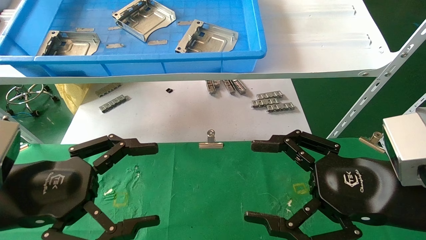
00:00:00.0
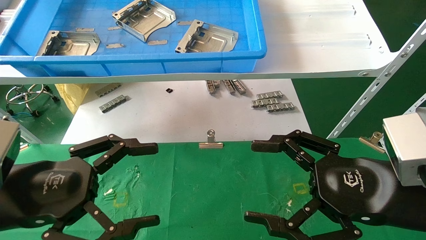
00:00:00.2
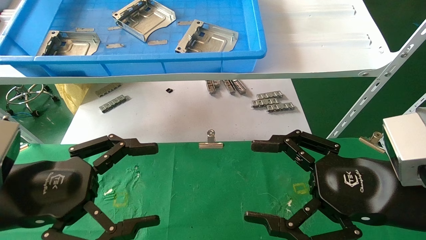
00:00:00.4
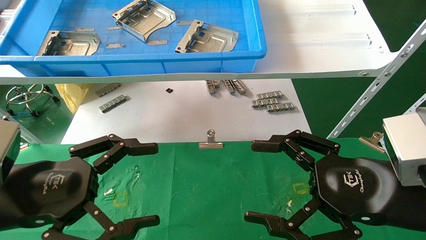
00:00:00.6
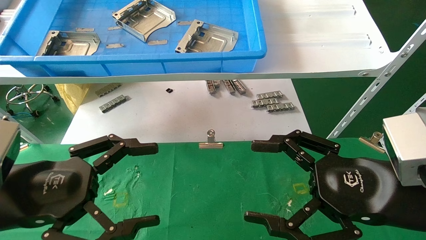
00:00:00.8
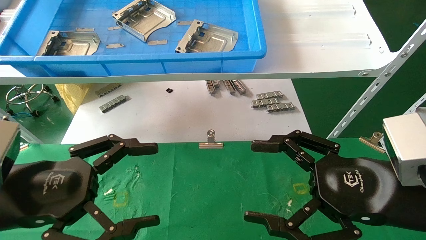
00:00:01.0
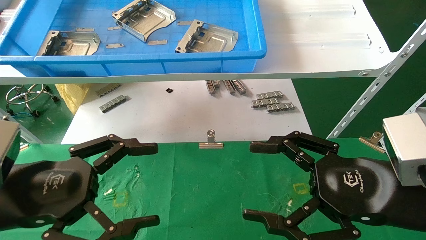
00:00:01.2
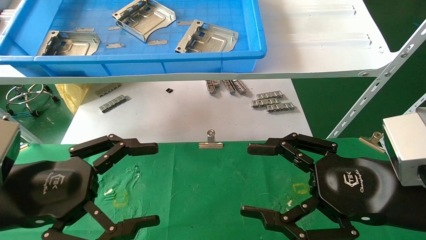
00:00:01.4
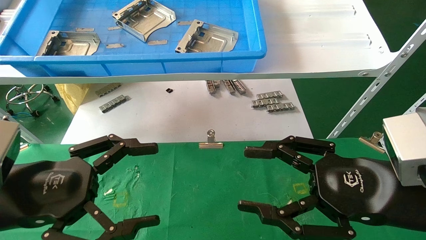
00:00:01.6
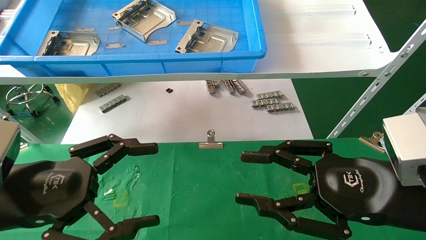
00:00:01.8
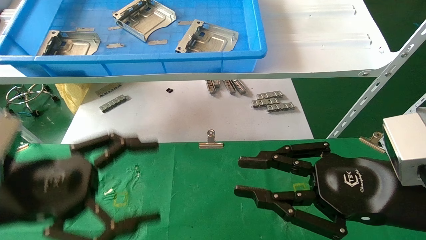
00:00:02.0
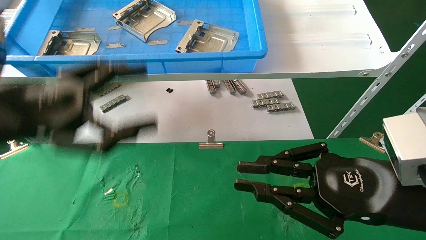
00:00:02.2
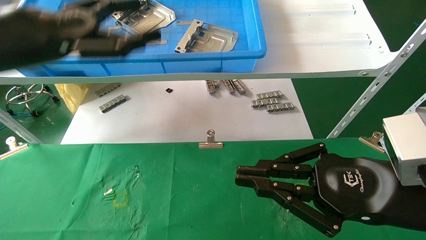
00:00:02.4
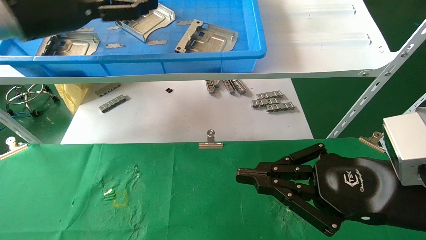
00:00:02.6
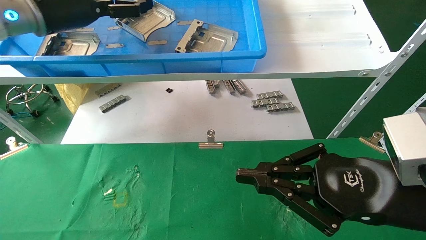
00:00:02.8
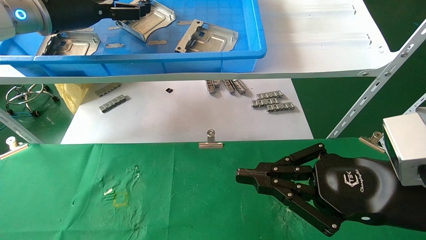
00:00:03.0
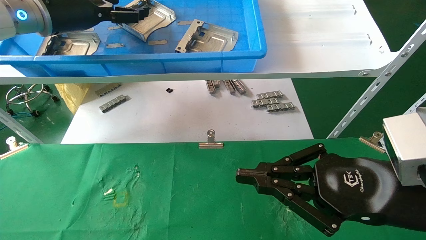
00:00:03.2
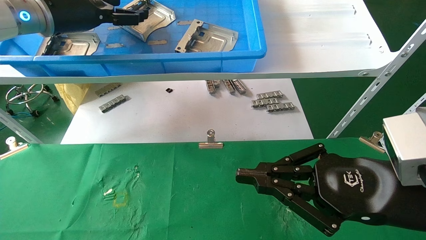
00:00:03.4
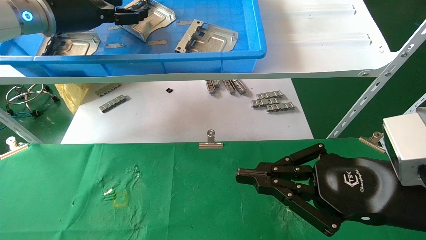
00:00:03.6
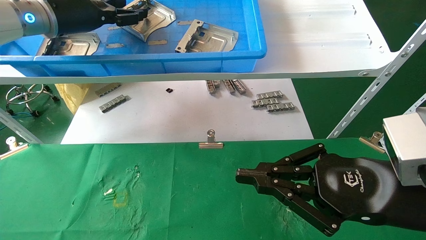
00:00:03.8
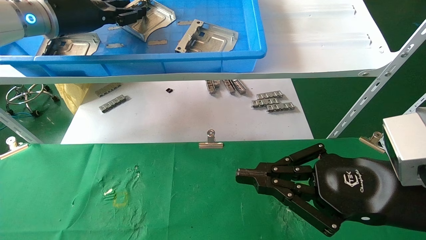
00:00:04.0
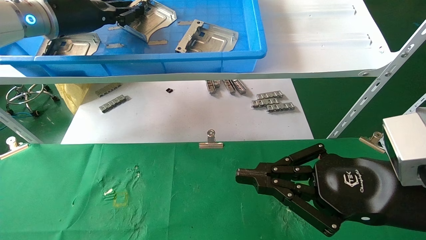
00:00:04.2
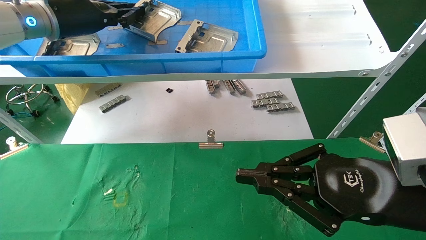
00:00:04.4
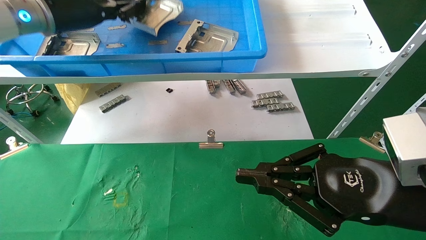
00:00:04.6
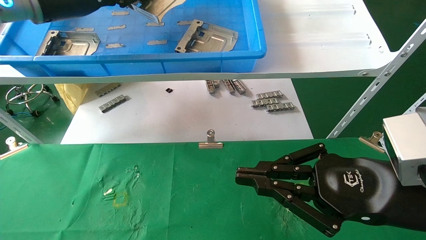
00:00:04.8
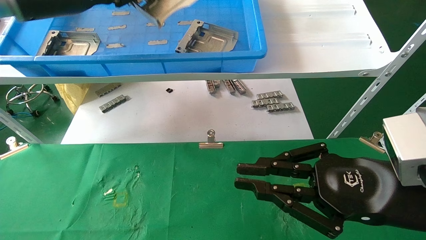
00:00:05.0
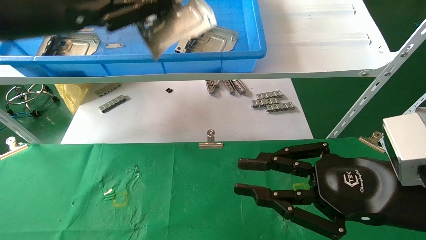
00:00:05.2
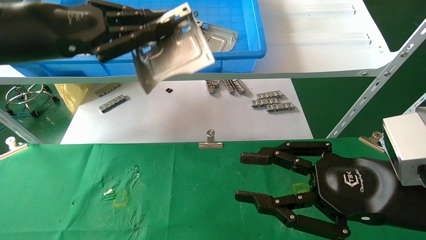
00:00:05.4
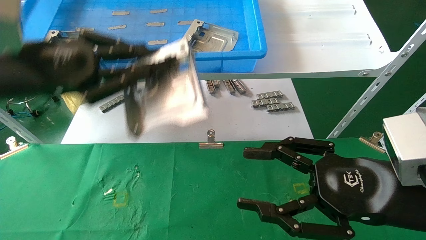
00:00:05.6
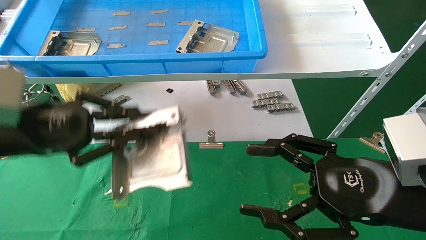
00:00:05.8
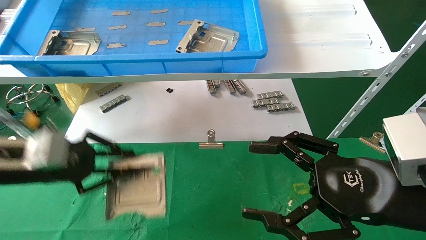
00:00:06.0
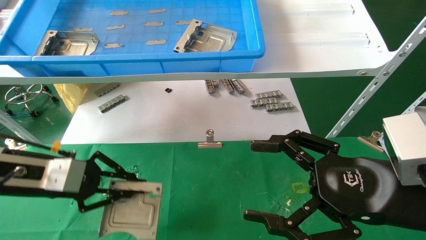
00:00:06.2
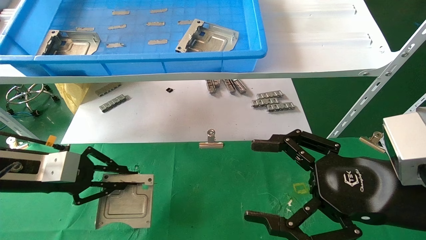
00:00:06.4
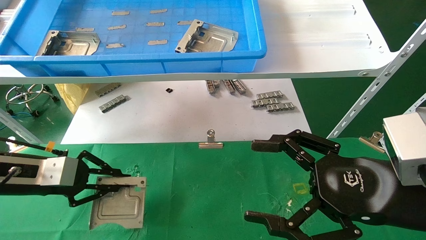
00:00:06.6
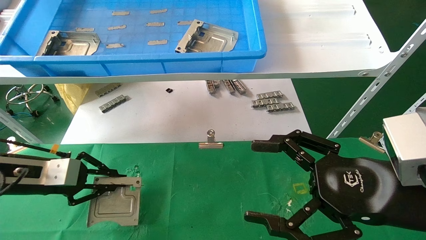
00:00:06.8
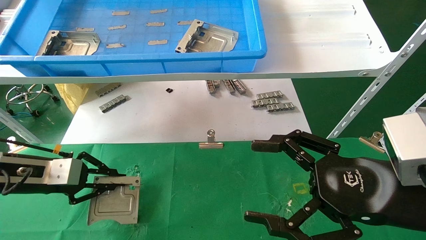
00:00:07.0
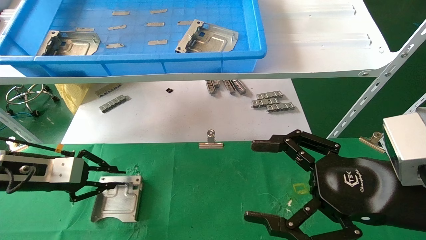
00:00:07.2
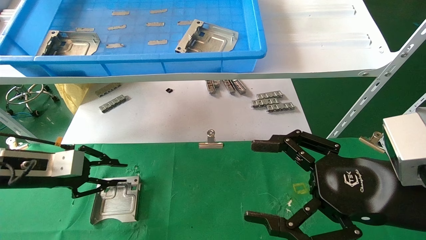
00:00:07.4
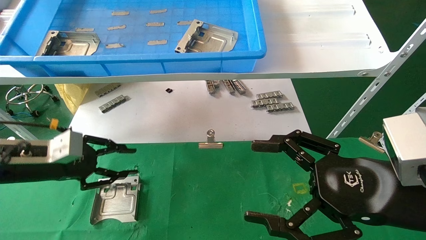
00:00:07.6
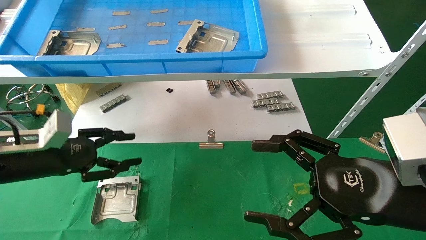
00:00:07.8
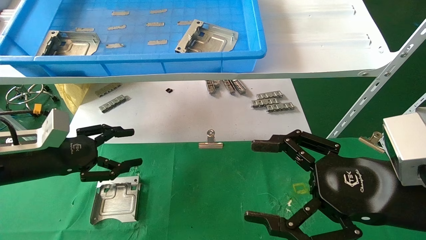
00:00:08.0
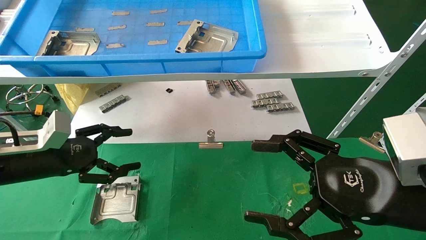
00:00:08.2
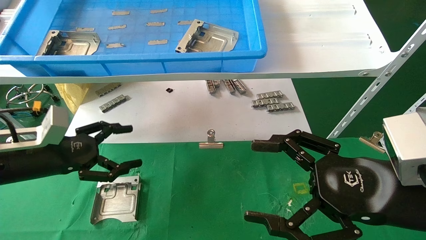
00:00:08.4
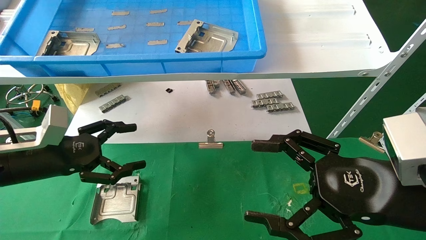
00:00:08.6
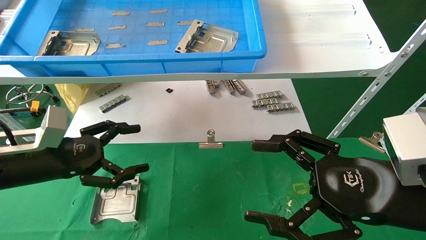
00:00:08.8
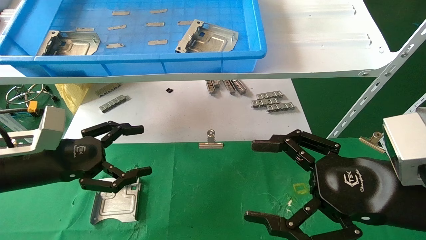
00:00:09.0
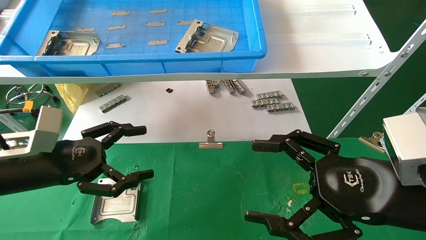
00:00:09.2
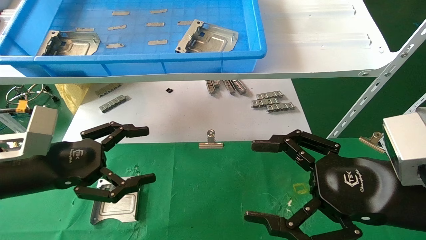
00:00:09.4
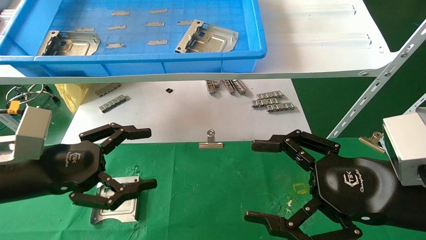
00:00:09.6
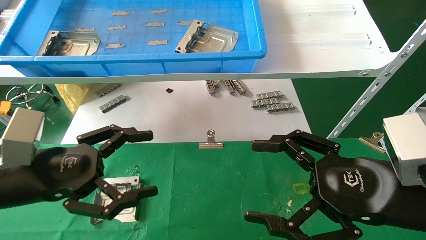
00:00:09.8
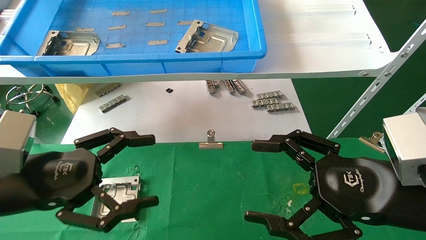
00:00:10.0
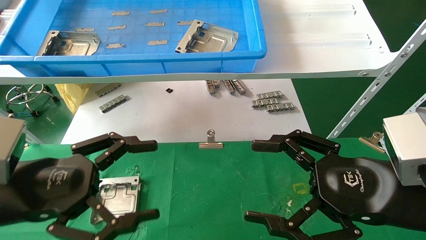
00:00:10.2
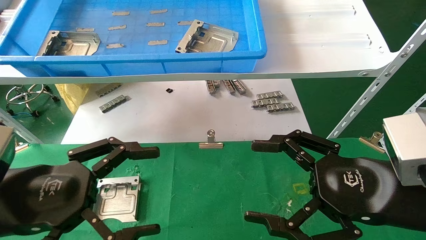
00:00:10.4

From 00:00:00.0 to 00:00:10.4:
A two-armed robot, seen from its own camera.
Task of the whole recording: use the mechanical arm to pick up the parts and place them on the table.
Step, from 00:00:01.8 to 00:00:04.4: Pick up the hard drive bracket from the feeding area.
Step, from 00:00:04.6 to 00:00:07.6: Place the hard drive bracket into the box.
From 00:00:00.0 to 00:00:01.4: Both grippers stay put.
From 00:00:01.4 to 00:00:03.0: The left gripper travels forward and upward by some 30 cm. The right gripper closes its fingers.
From 00:00:03.0 to 00:00:04.4: The left gripper closes.
From 00:00:04.4 to 00:00:06.0: The right gripper opens its fingers, while the left gripper shifts roughly 25 cm downward and backward.
From 00:00:06.0 to 00:00:07.4: The left gripper goes about 5 cm downward.
From 00:00:07.4 to 00:00:09.0: The left gripper ends up about 5 cm from where it was, and opens.
From 00:00:09.0 to 00:00:10.4: The left gripper is displaced backward by about 10 cm.

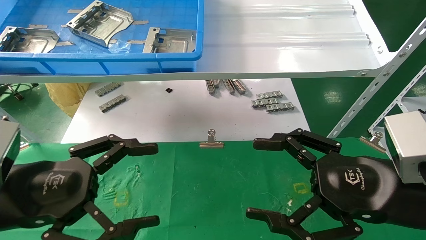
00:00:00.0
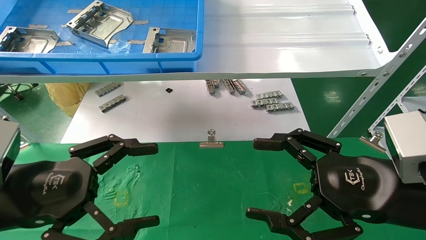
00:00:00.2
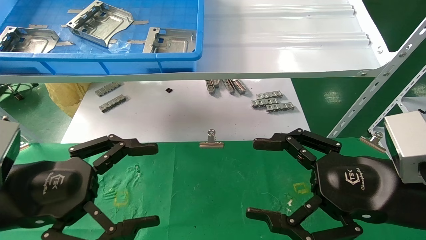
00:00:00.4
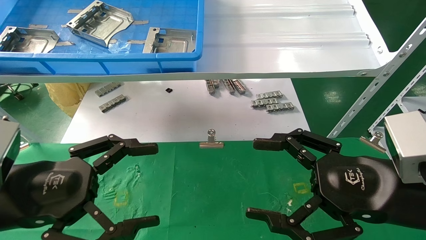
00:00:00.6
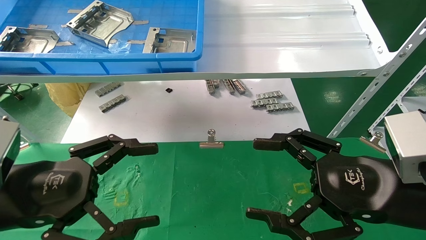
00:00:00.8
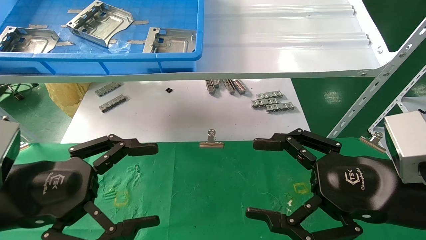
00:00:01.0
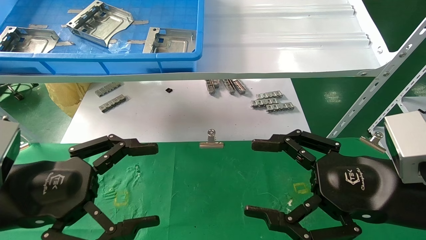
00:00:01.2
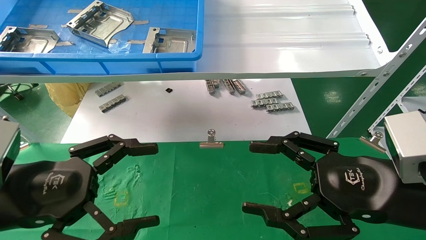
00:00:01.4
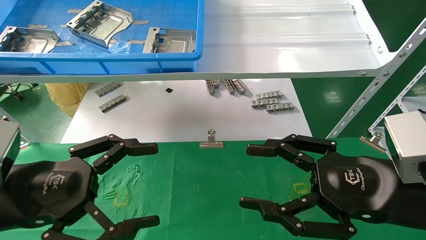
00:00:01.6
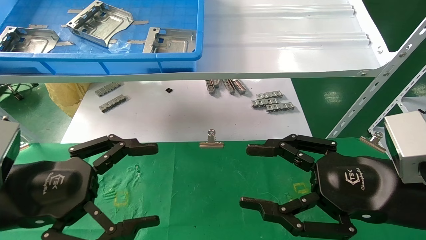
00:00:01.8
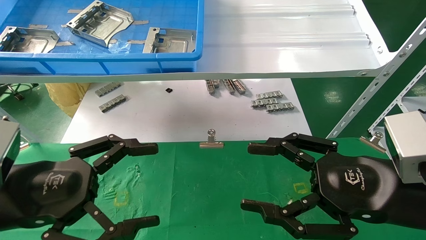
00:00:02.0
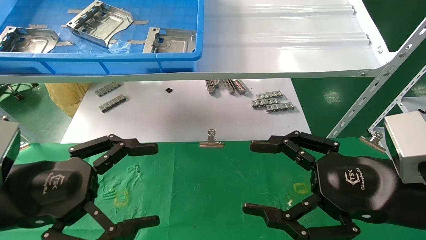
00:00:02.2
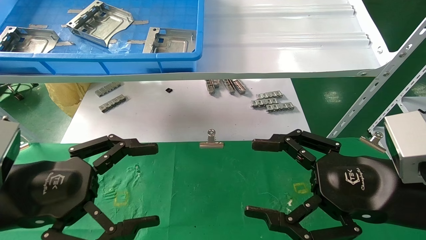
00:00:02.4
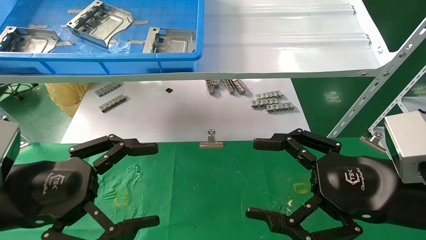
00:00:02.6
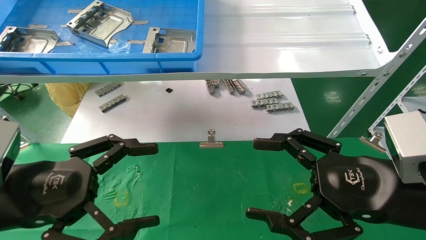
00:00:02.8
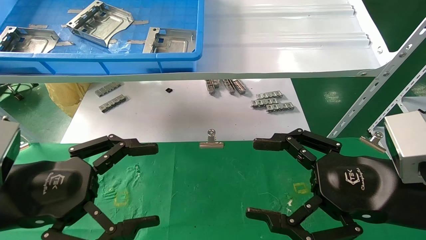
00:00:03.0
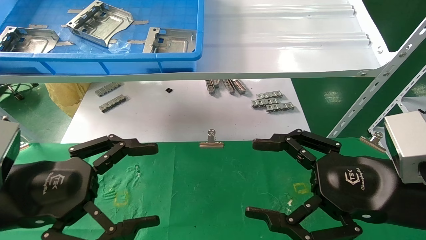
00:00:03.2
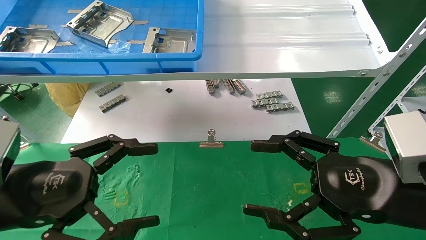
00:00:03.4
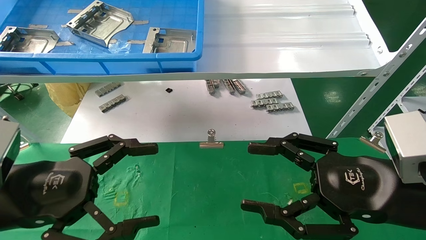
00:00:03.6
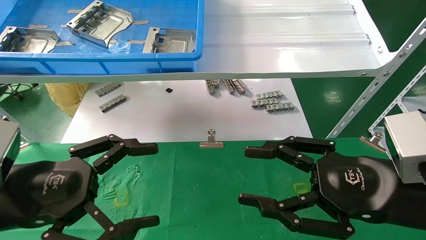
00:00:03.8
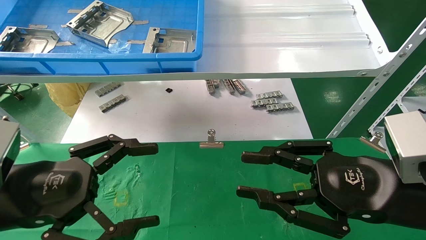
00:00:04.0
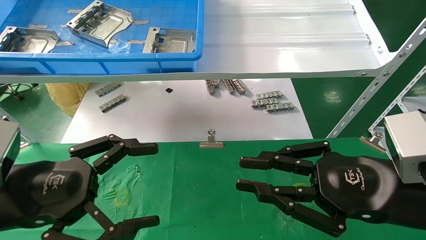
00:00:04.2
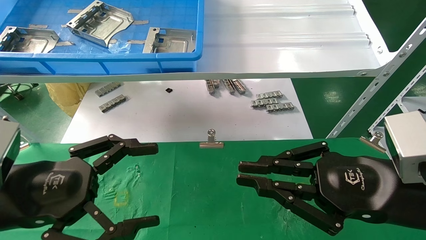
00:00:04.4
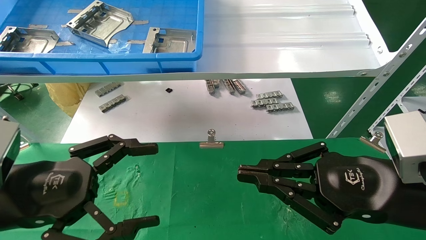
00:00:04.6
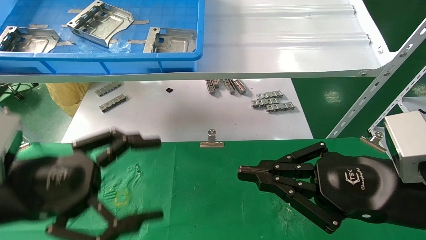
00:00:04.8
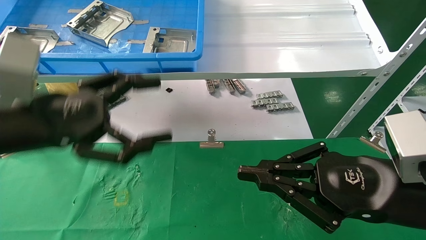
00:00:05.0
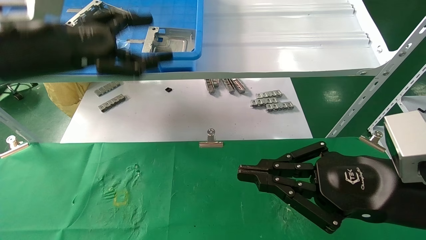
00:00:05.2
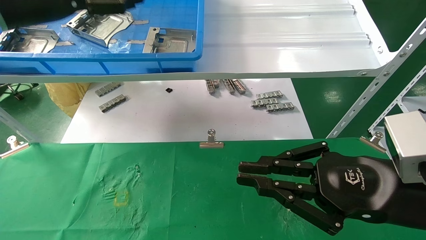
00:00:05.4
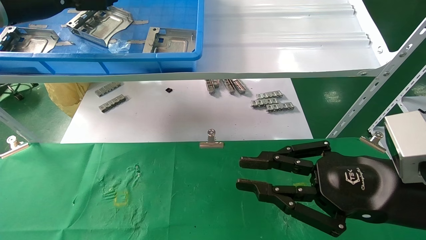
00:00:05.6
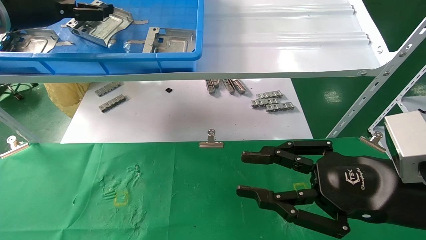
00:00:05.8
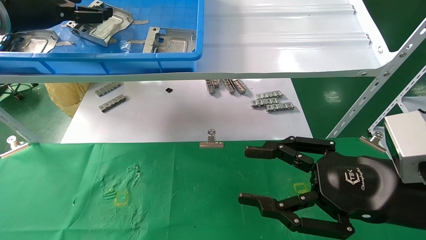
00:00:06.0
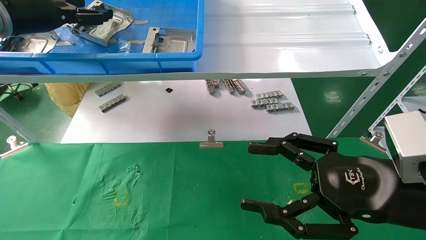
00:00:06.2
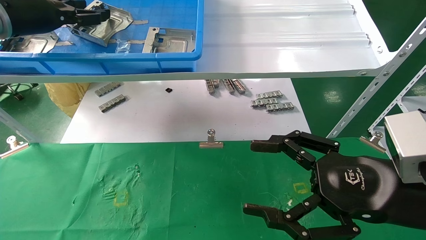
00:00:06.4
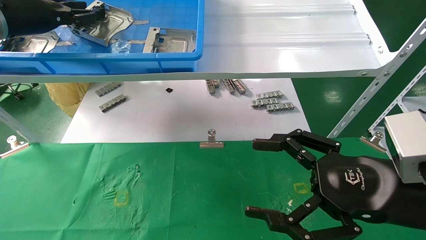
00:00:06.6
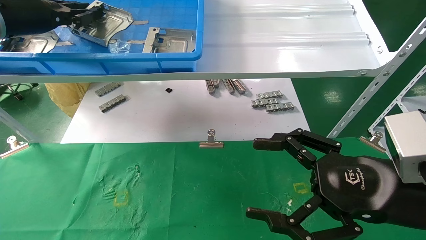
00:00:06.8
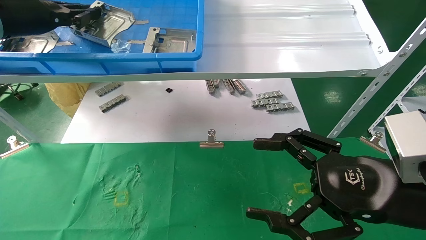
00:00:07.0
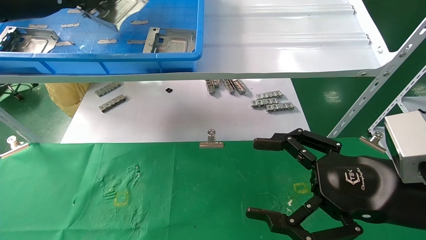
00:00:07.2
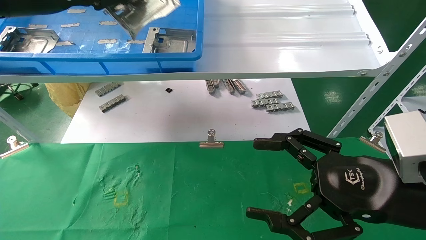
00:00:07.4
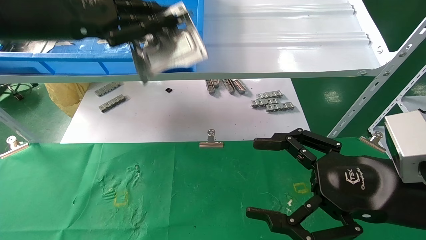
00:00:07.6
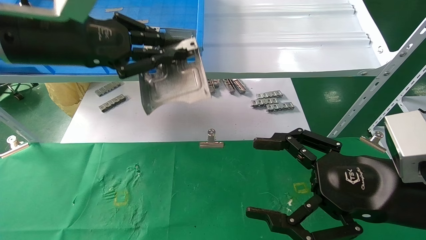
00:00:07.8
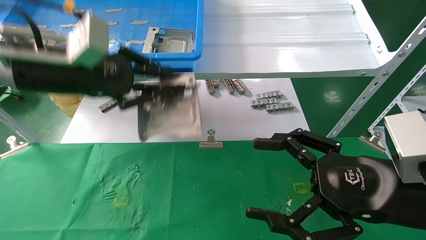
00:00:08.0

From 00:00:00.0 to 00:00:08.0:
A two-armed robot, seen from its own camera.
Task of the whole recording: use the mechanical arm to pick up the parts and place them on the table.
Step, from 00:00:05.0 to 00:00:07.0: Pick up the hard drive bracket from the feeding area.
From 00:00:00.0 to 00:00:03.2: Both grippers stay put.
From 00:00:03.2 to 00:00:04.8: The right gripper closes up.
From 00:00:04.8 to 00:00:06.4: The left gripper is displaced forward, upward and to the left by about 30 cm. Meanwhile the right gripper opens up.
From 00:00:06.4 to 00:00:08.0: The left gripper shifts approximately 15 cm downward, to the right and backward, and closes.
